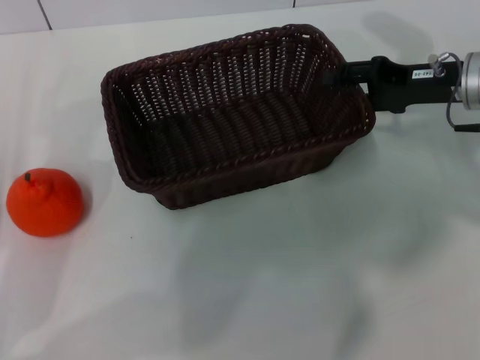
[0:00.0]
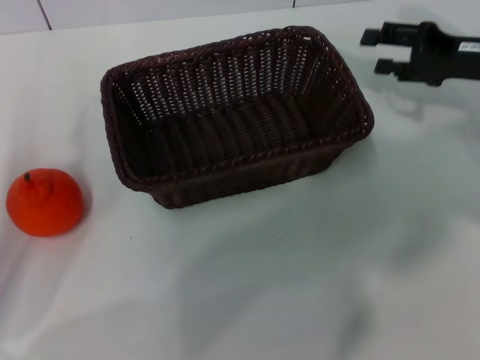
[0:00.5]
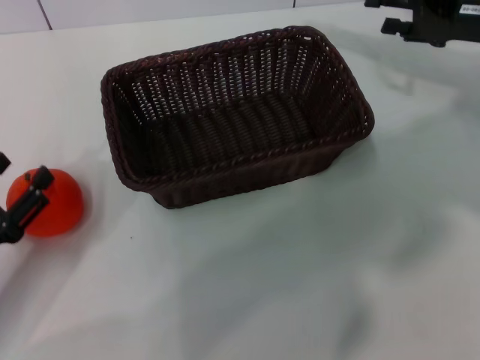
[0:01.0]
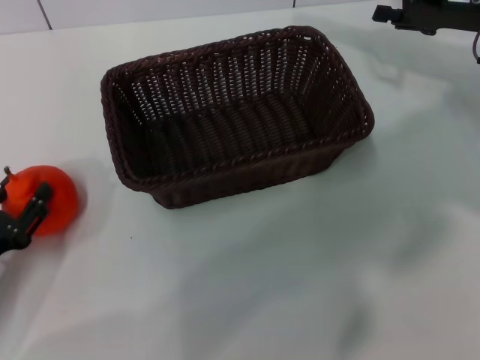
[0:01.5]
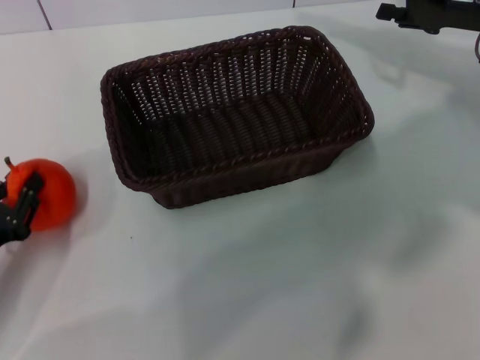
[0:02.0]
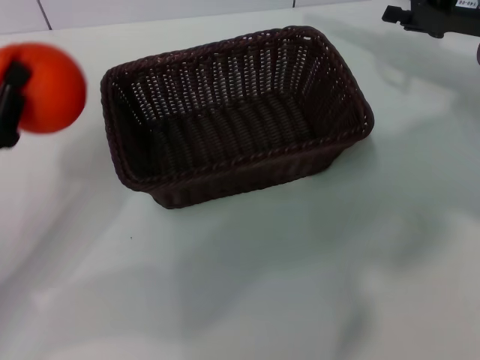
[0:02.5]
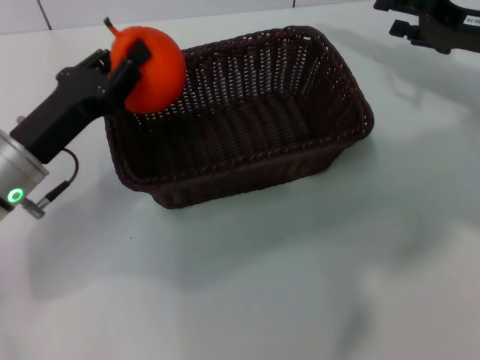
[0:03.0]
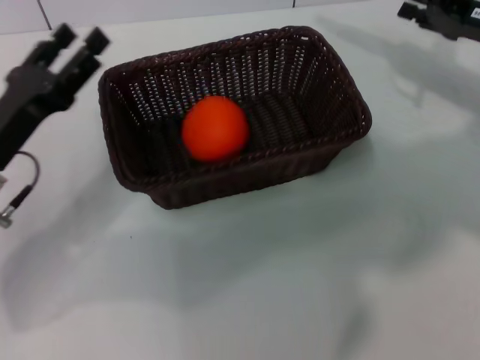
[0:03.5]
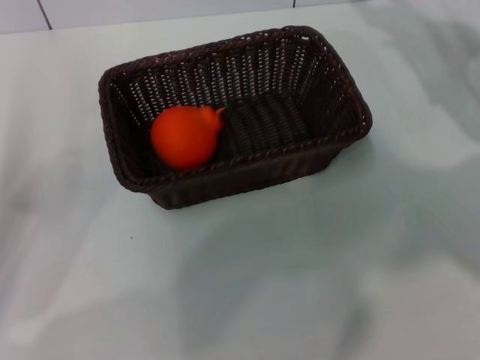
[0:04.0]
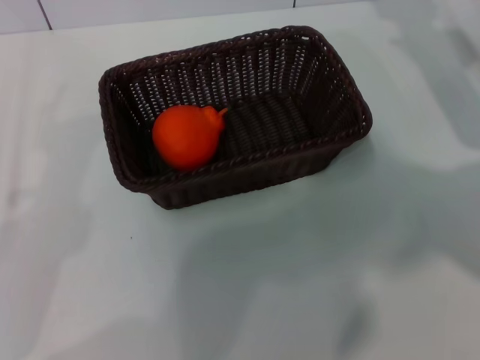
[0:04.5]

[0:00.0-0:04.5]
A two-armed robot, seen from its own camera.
Task of the whole recording: the right gripper pick up the black basket and place it horizontally in the middle of the table, the left gripper pick up the orange and place it into the black basket.
Step, 0:00.5 to 0:02.0: Pick up the orange with the left gripper.
Step, 0:02.5 to 0:03.0: Place the orange into the light basket with the left gripper.
0:00.0 to 0:02.0: The right gripper changes place by approximately 5 cm. Meanwhile the left gripper closes.
0:02.0 to 0:04.5: The right gripper shifts by approximately 5 cm, while the left gripper travels forward and back again, some 10 cm each way, and opens up.

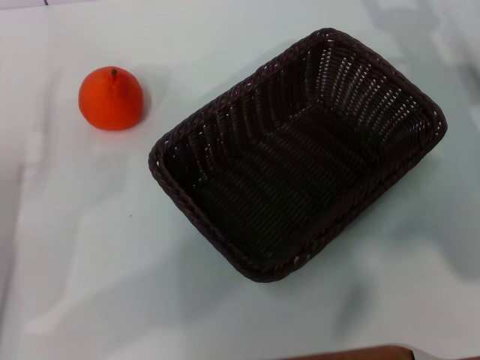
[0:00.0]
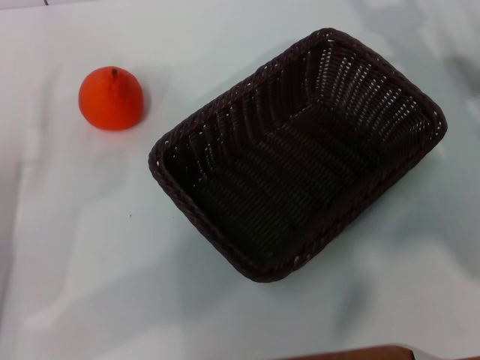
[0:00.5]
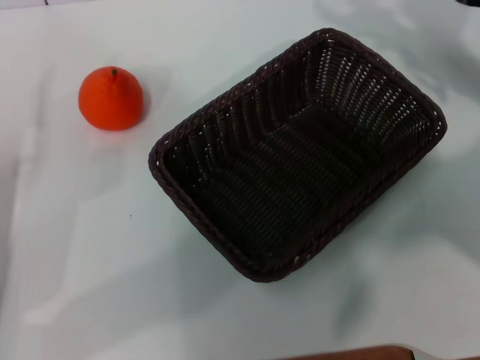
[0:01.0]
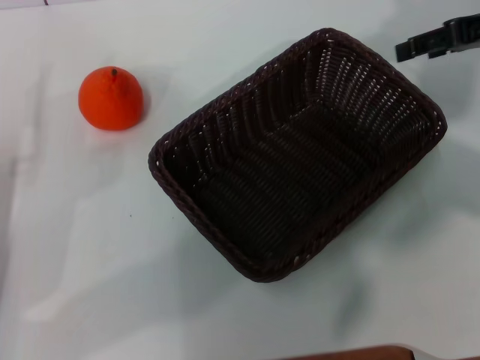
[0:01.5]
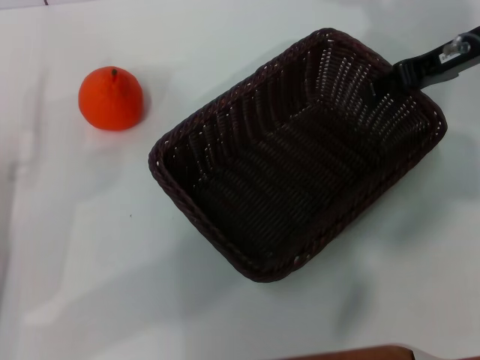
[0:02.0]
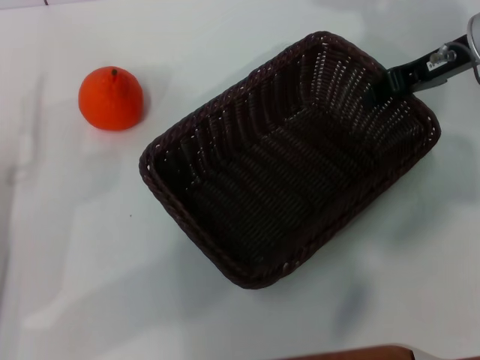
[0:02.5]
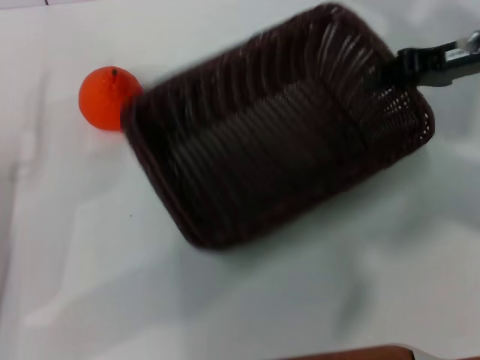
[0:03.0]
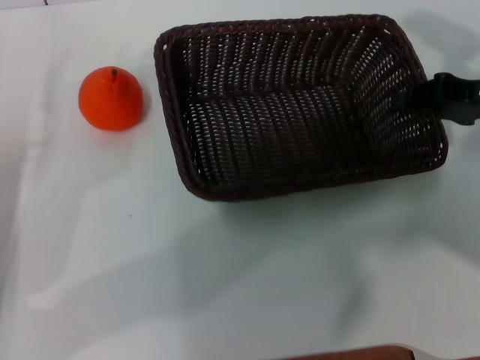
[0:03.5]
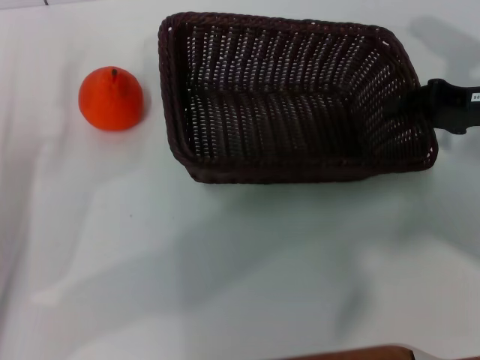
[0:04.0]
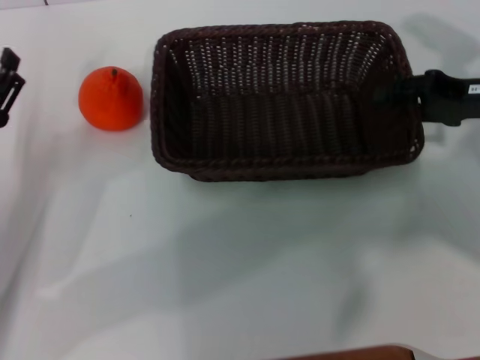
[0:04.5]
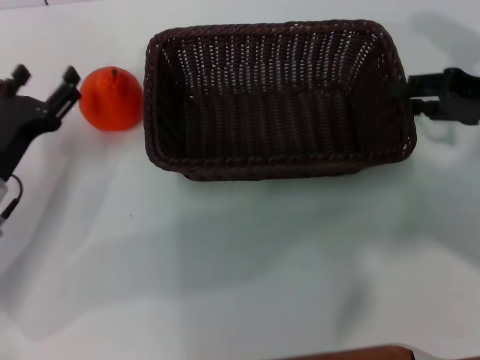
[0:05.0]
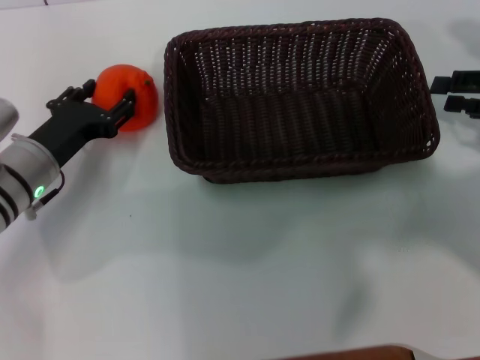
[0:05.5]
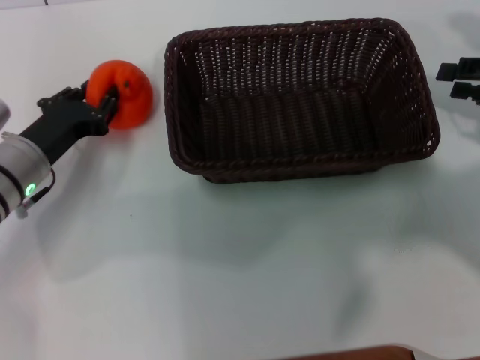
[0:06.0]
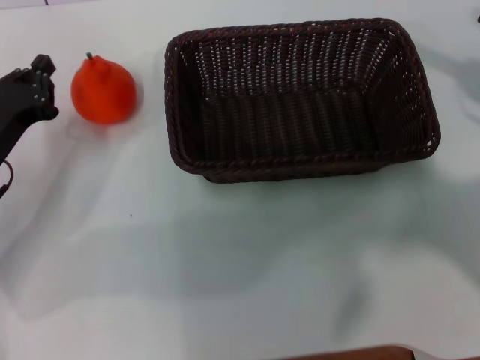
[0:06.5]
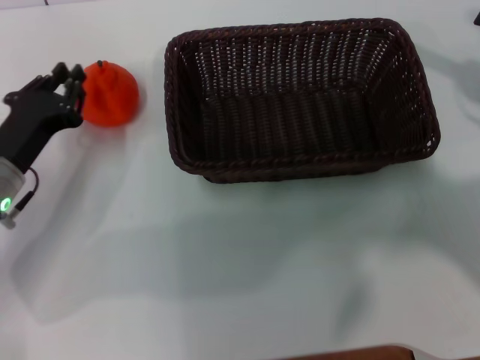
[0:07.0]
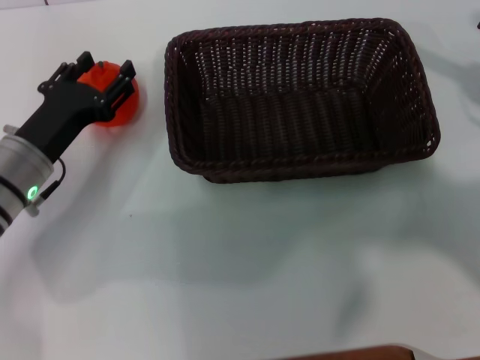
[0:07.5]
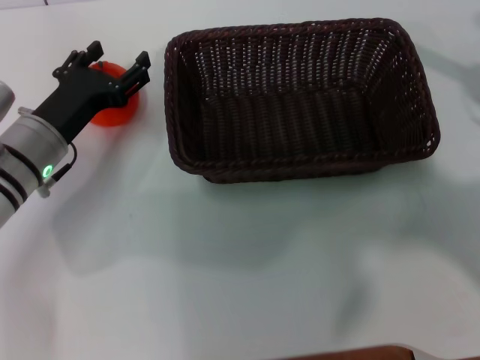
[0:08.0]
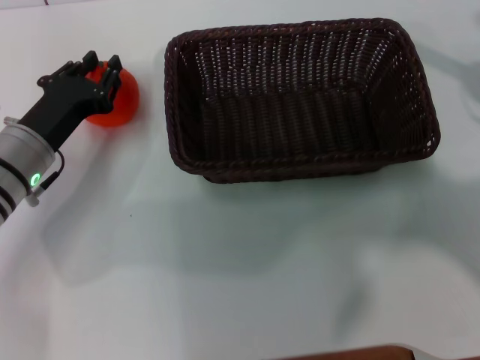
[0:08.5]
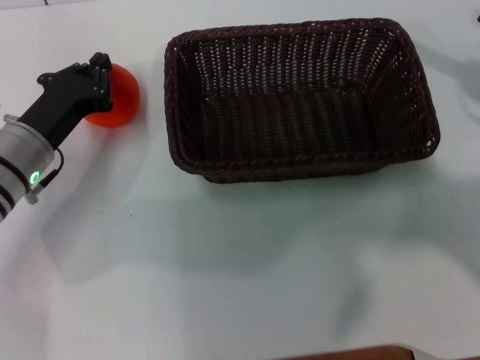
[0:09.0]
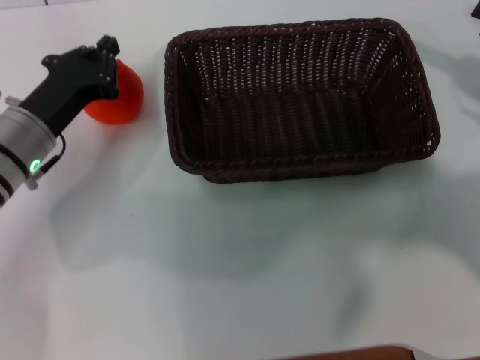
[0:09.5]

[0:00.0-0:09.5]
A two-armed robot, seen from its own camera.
Task of the whole recording: the right gripper pick up the black basket and place it horizontally in the middle of the table, the left gripper pick up the orange and place it into the black basket.
Step, 0:00.0 to 0:02.5: Pick up the dark basket with the right gripper.
Step, 0:03.0 to 0:06.0: Place the dark basket in the center of view with the right gripper.
0:00.0 to 0:02.0: The right gripper is displaced upward and forward by approximately 10 cm.
0:02.0 to 0:04.0: The right gripper travels backward, downward and to the right by approximately 10 cm, and closes.
0:04.0 to 0:05.5: The right gripper ends up some 5 cm from where it was, and opens its fingers, while the left gripper is displaced forward and to the right by roughly 10 cm.
0:05.5 to 0:07.5: The left gripper closes, then reopens.
0:07.5 to 0:09.5: The left gripper closes its fingers.

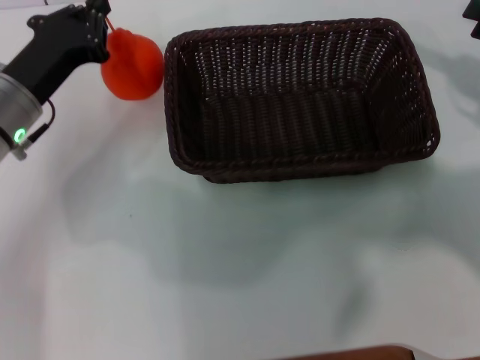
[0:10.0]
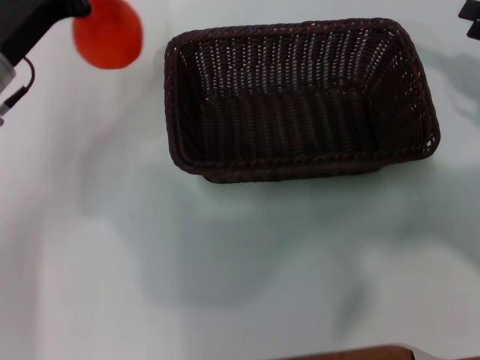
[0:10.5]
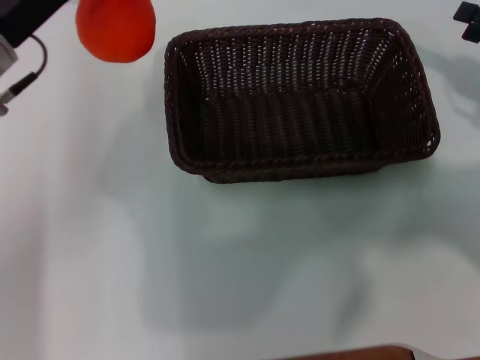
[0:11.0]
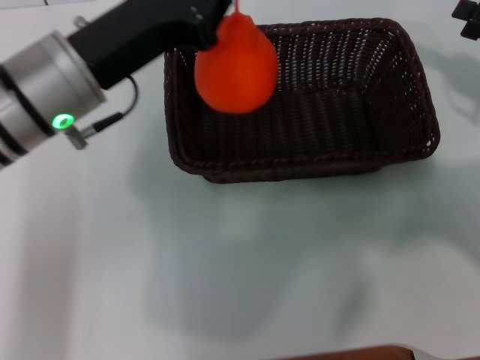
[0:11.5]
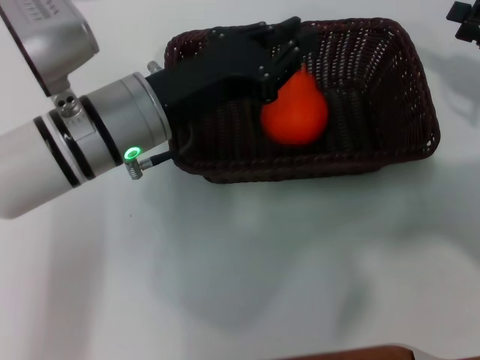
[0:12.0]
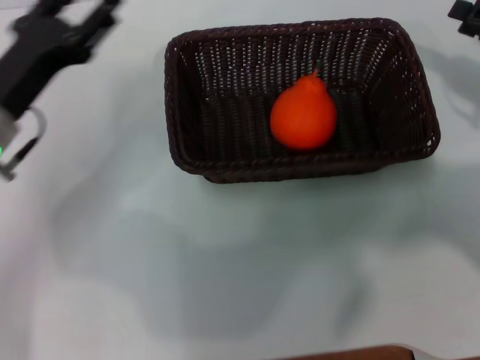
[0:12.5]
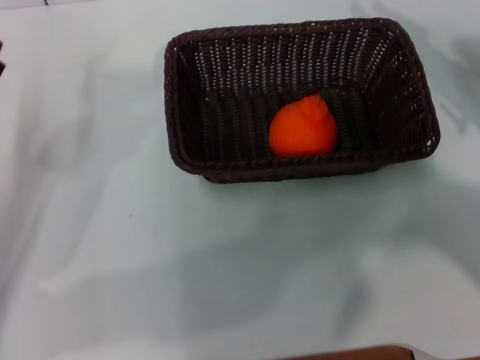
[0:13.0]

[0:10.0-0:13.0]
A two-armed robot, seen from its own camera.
Task of the whole recording: the right gripper pick up the black basket and place it horizontally in the middle of the table, the left gripper pick up the orange and place it into the black basket.
0:10.0 to 0:11.5: The left gripper is displaced upward and to the right by about 10 cm.
0:11.5 to 0:13.0: The left gripper goes roughly 20 cm to the left and downward, and opens.
